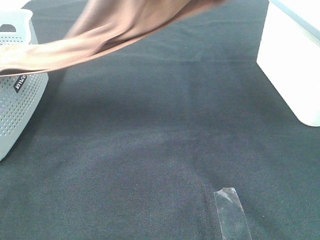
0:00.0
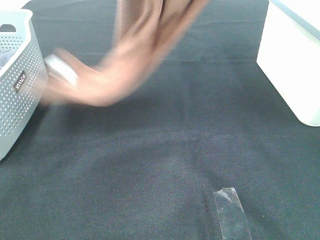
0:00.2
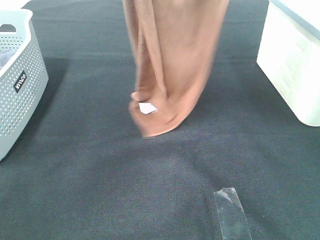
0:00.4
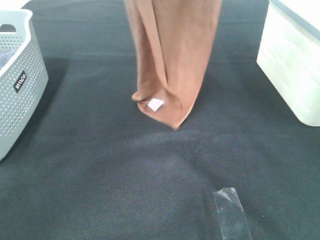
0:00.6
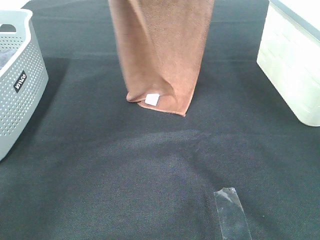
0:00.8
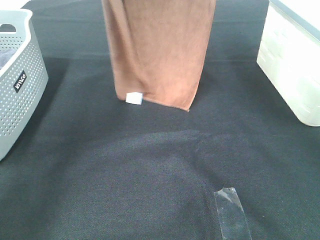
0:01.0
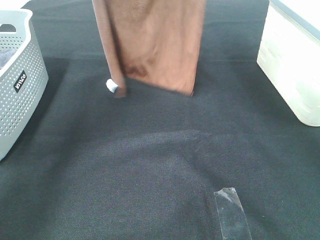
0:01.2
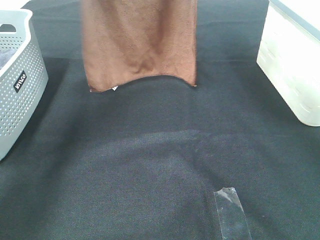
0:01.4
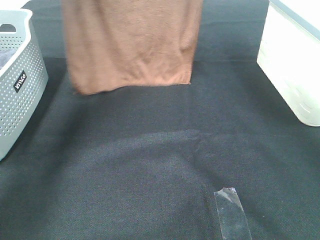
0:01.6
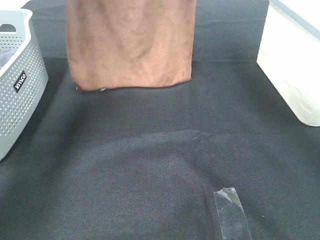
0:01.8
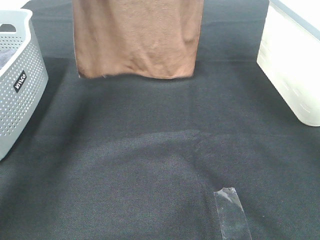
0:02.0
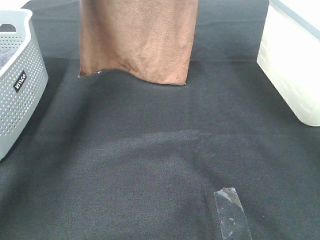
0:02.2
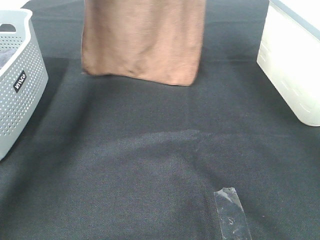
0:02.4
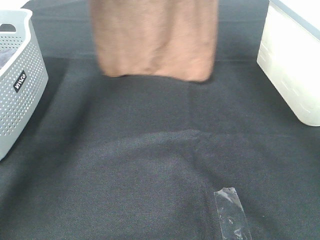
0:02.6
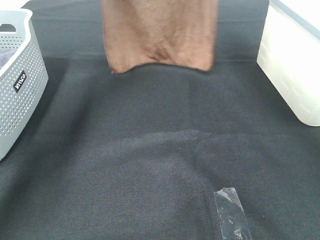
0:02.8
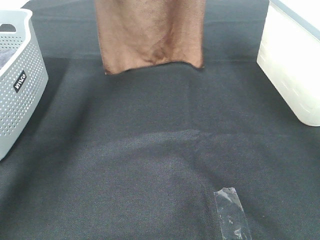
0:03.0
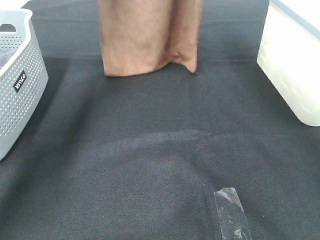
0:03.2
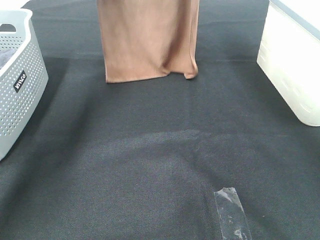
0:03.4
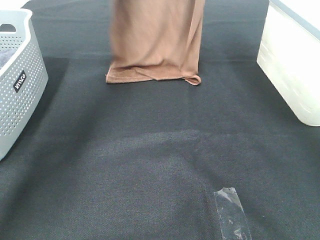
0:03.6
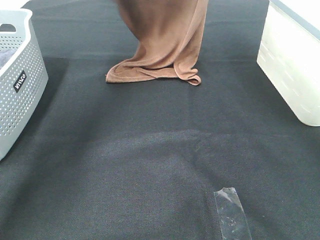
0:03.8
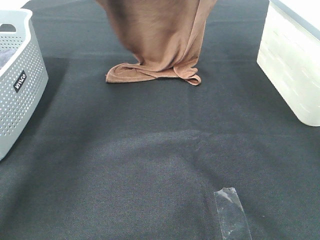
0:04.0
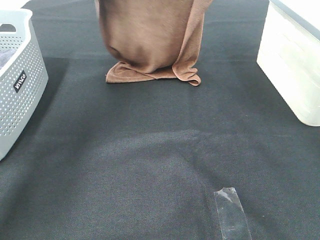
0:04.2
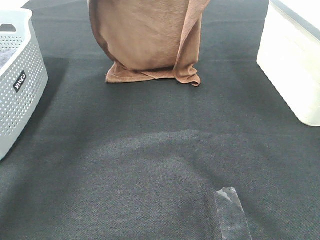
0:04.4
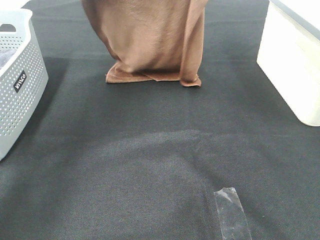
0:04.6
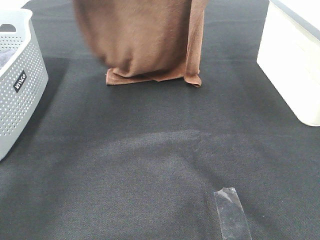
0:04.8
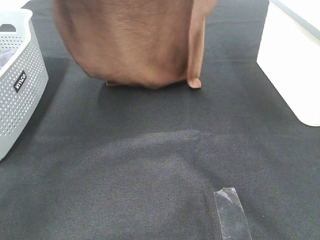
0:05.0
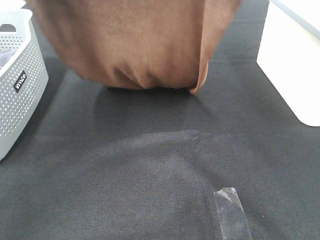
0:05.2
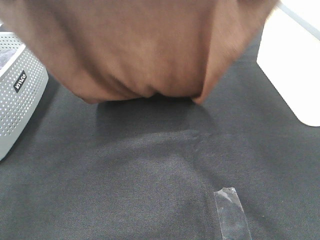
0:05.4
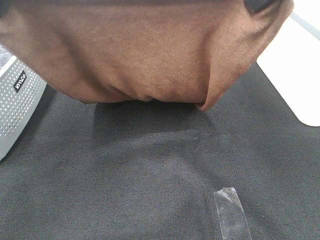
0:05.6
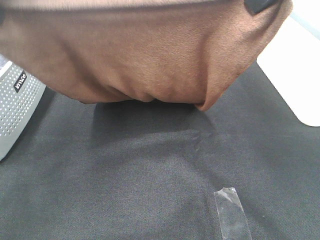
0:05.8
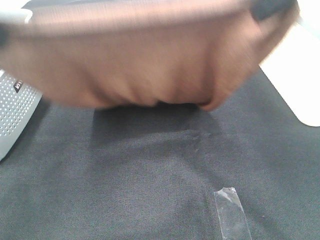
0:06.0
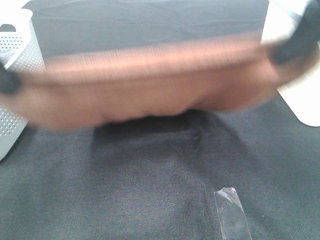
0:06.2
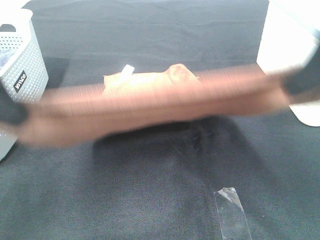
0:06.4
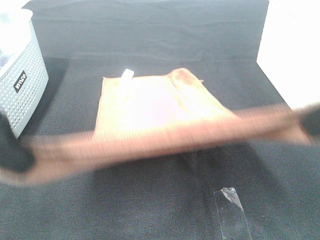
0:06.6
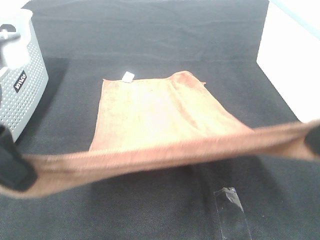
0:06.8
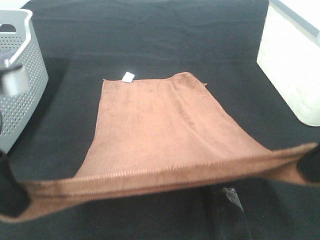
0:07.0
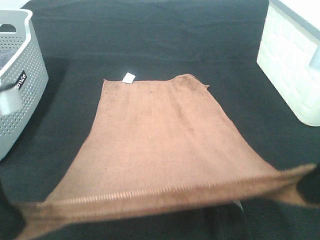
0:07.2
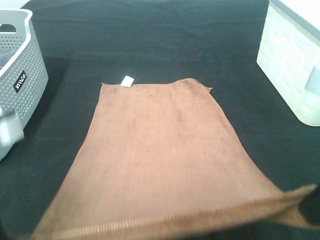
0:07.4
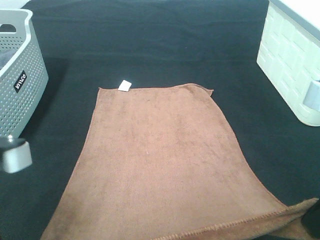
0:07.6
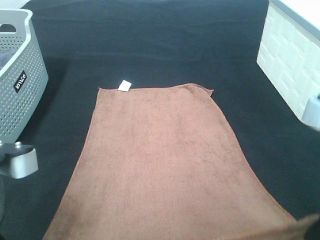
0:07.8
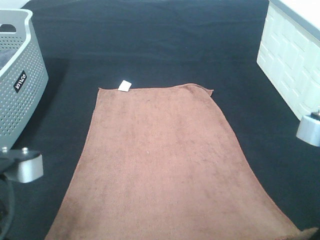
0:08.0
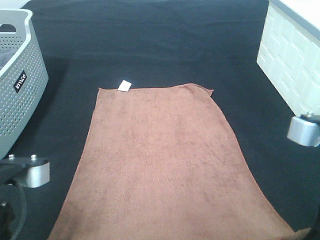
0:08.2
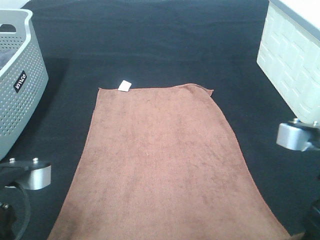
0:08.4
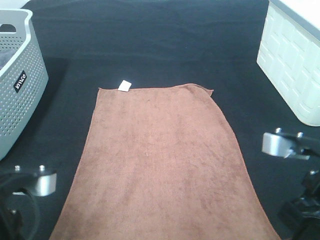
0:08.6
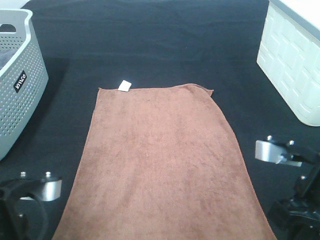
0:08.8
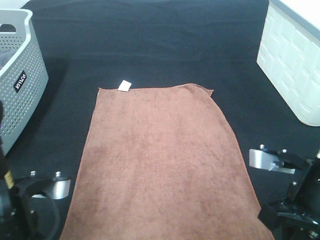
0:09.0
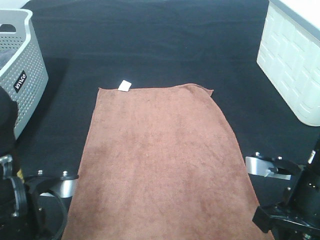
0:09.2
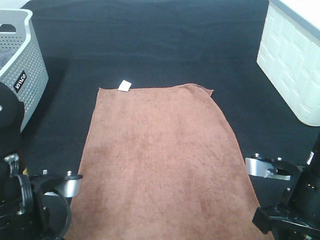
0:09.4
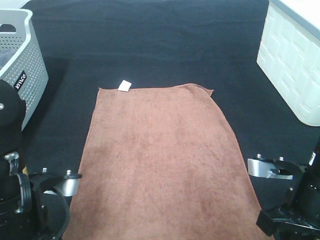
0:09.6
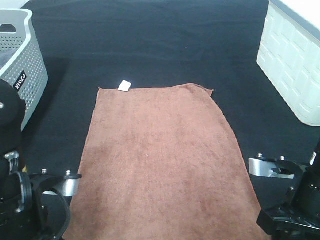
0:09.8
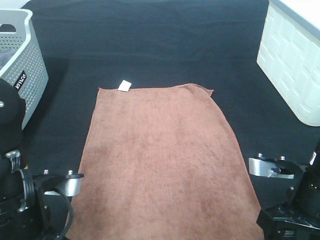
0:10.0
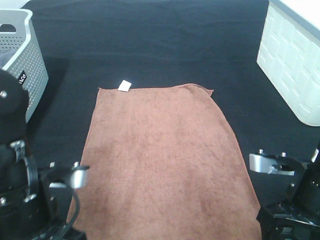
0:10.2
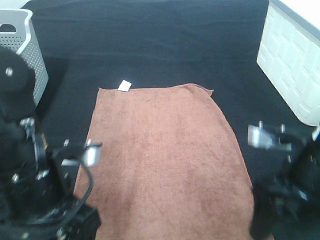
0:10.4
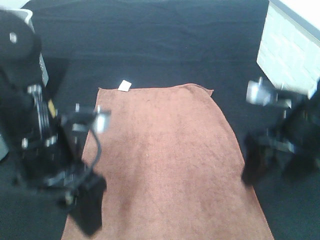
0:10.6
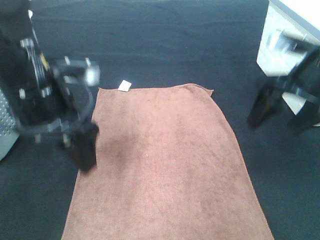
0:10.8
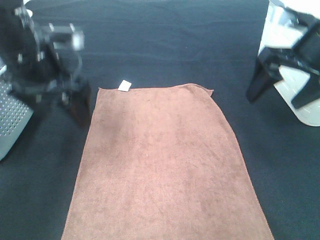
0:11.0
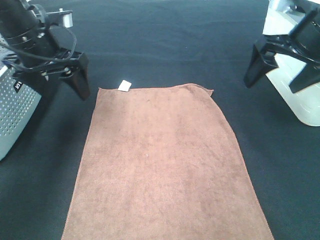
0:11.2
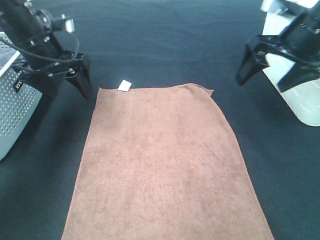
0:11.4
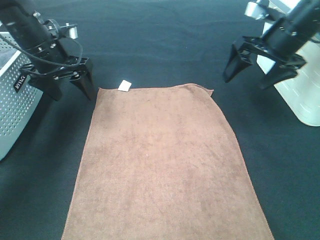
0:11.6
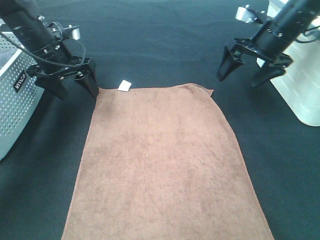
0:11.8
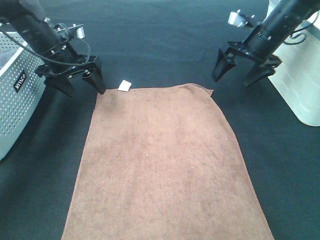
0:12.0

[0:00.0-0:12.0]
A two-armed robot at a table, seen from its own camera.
Task of the whole recording: Remove the towel and place it.
Step, 0:00.0 to 0:06.2: Left hand: spread the brown towel flat on the table.
Step, 0:00.0 to 0:06.2: Right hand: spread the brown towel flat on the table.
0:00.0 to 0:01.6: The left gripper heads forward and to the left, covering some 20 cm. The right gripper travels forward by some 10 cm.
0:01.6 to 0:03.0: The right gripper shifts by about 5 cm; the left gripper travels forward by approximately 10 cm.
0:03.0 to 0:04.4: Both grippers travel together backward, some 10 cm.
0:04.4 to 0:06.0: Both grippers travel together backward, some 20 cm.
0:06.0 to 0:07.6: Both grippers travel together downward and backward, about 15 cm.
0:07.6 to 0:09.0: The right gripper travels downward by roughly 10 cm. Meanwhile the left gripper is displaced downward by about 5 cm.
0:09.0 to 0:10.4: The right gripper opens. The left gripper ends up some 5 cm from where it was, and opens.
0:10.4 to 0:12.0: Both grippers travel together forward, about 30 cm.

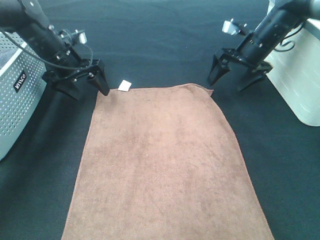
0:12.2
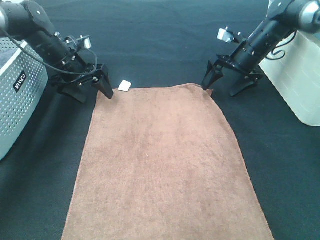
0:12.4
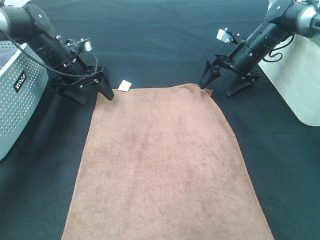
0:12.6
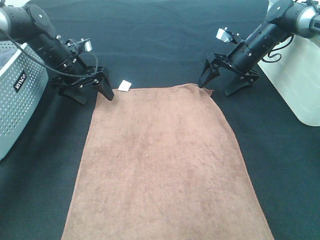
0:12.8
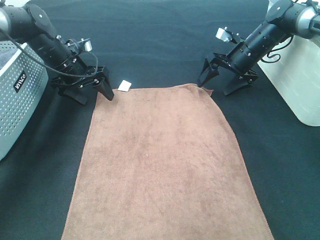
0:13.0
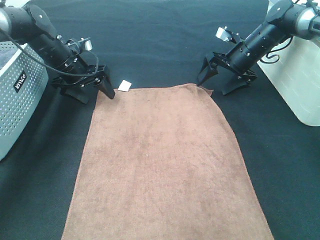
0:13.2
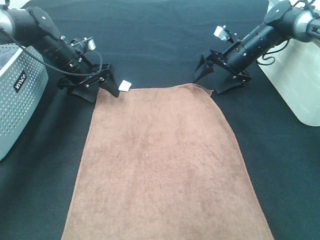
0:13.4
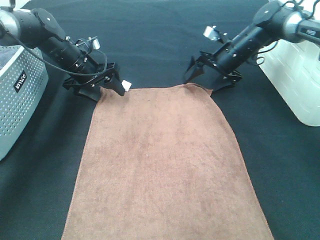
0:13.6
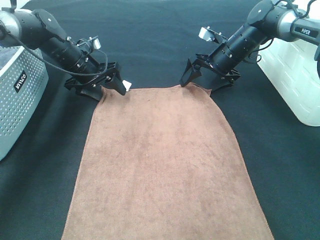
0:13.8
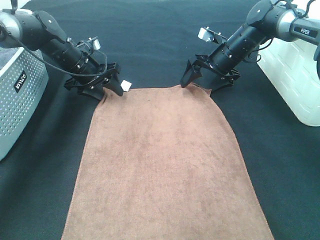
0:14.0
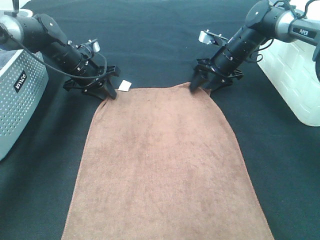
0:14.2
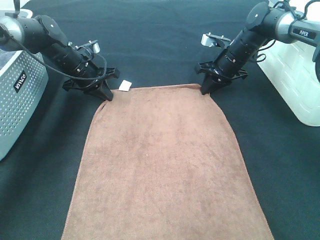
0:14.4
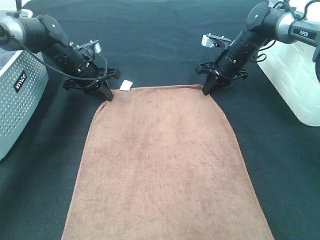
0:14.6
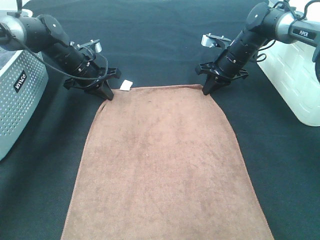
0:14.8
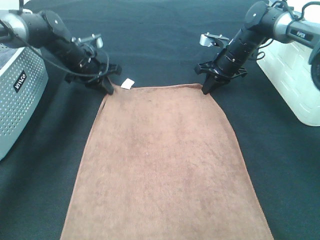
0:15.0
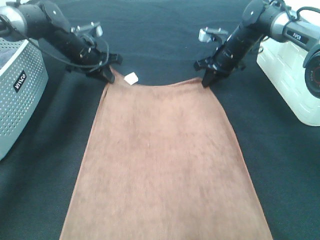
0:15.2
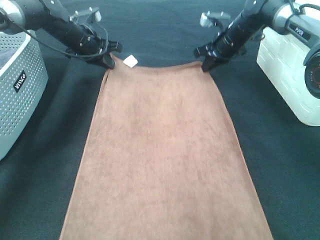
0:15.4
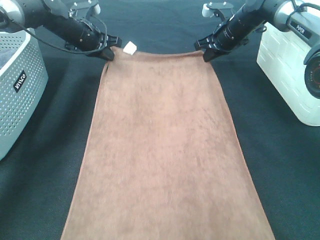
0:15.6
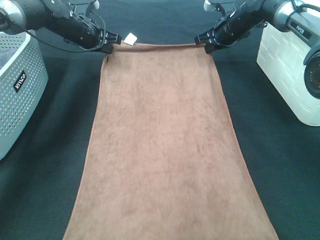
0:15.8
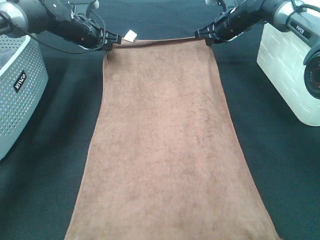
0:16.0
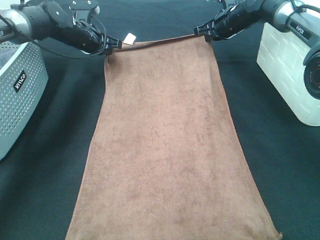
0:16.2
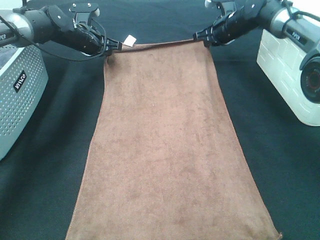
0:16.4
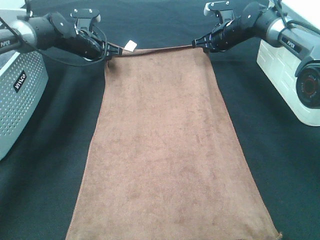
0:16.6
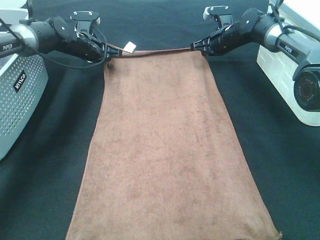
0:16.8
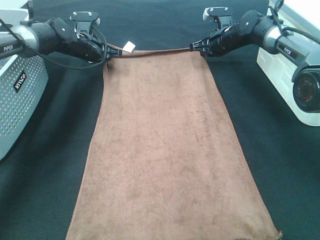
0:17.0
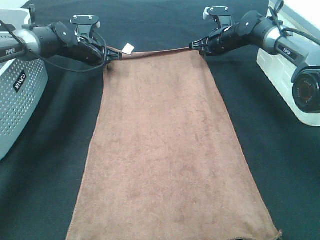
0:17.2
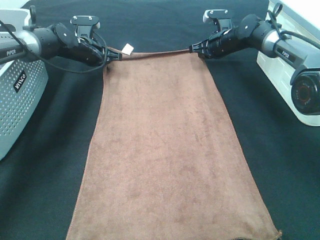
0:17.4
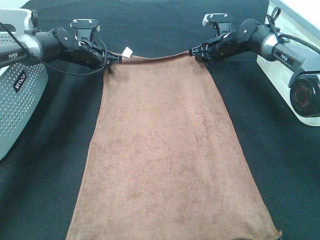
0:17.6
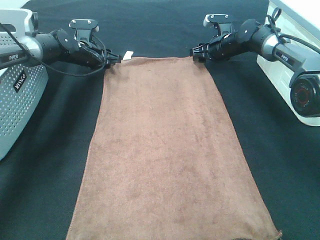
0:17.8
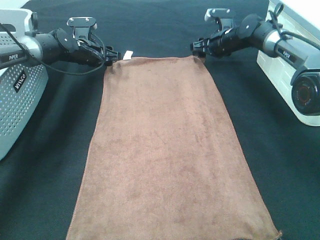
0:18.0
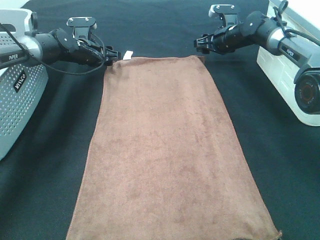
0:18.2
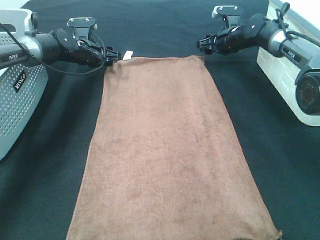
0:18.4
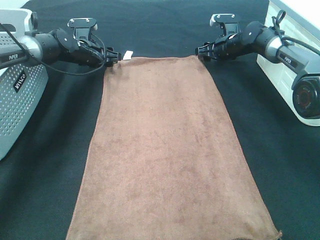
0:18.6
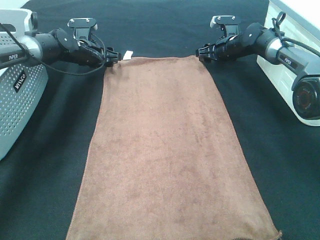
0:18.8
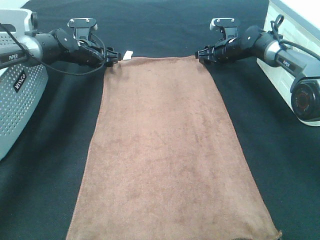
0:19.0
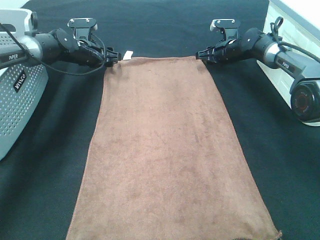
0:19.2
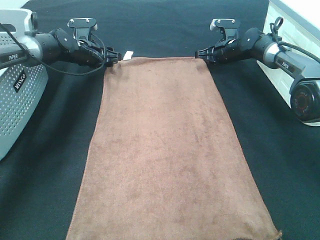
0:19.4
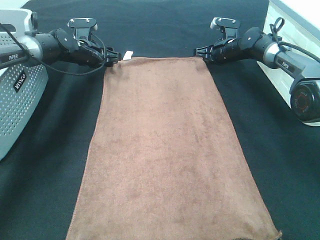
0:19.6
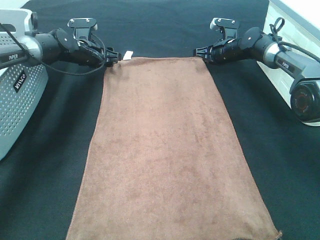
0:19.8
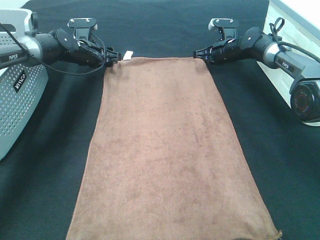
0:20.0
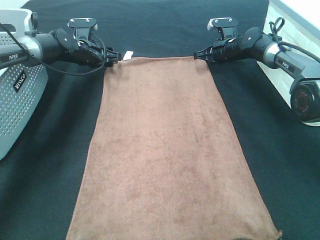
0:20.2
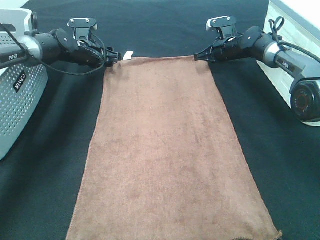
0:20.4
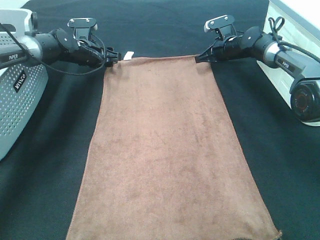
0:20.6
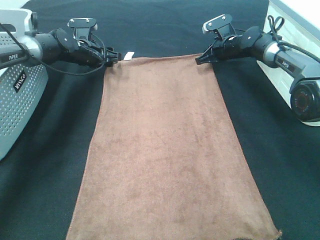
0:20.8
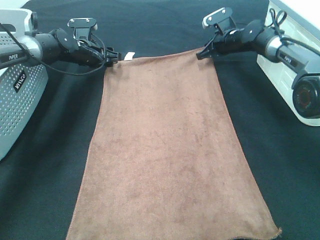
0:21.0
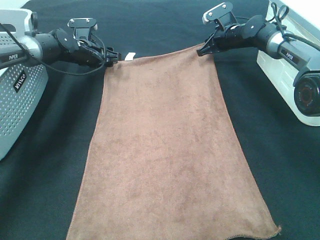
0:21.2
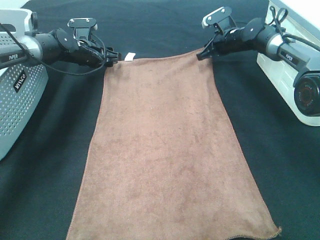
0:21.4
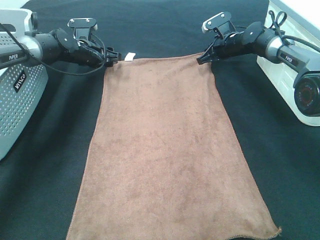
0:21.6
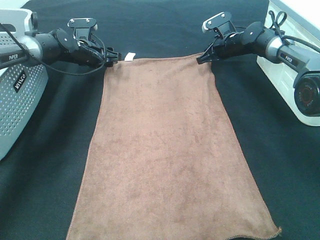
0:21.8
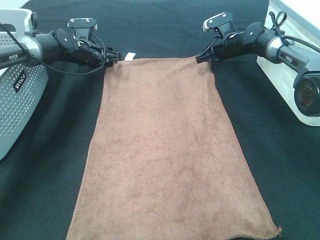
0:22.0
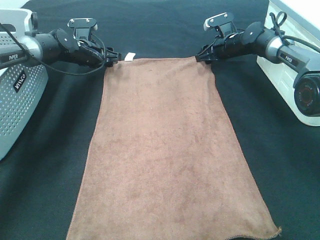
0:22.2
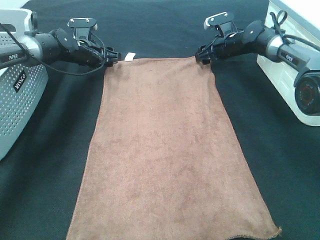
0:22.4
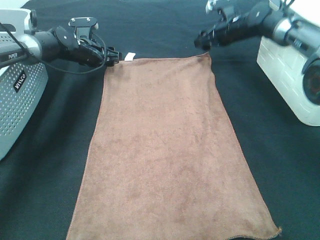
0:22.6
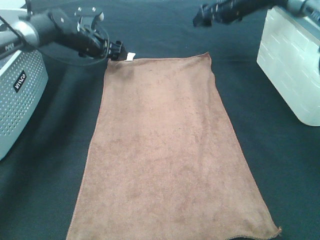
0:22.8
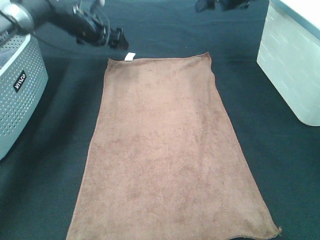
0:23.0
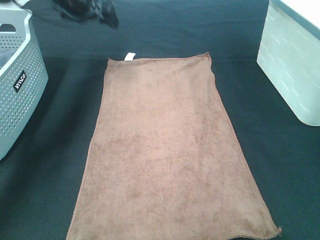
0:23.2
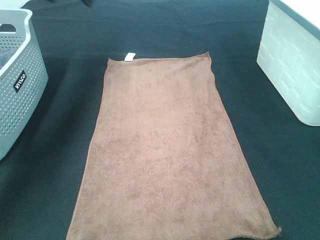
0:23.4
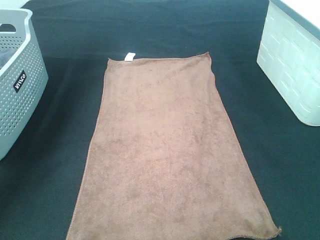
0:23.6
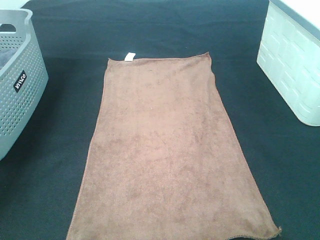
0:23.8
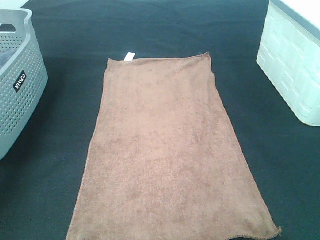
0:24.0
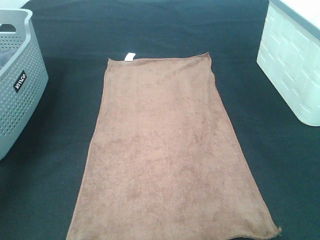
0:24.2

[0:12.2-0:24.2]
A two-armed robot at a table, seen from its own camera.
Task of the whole recording: Remove the towel and place it.
Step, 0:12.2 to 0:16.2: Right hand:adjust the brown towel.
0:12.2 to 0:13.8: The right gripper shifts by about 5 cm.
0:13.8 to 0:15.2: The right gripper closes. Meanwhile the left gripper closes up.
0:16.6 to 0:18.2: The right gripper opens. The left gripper opens its fingers.
0:18.2 to 0:19.8: The right gripper closes.
0:21.2 to 0:22.6: The right gripper opens up.
0:22.6 to 0:24.2: The right gripper is displaced upward and backward by approximately 40 cm; the left gripper travels upward, backward and to the left by some 40 cm.
